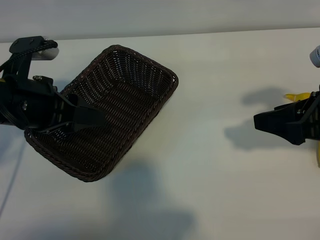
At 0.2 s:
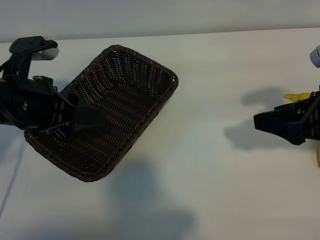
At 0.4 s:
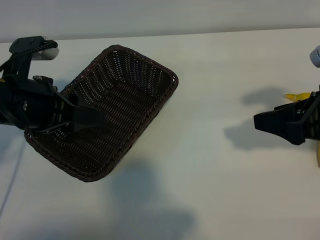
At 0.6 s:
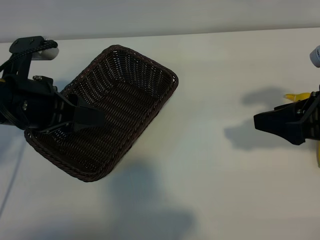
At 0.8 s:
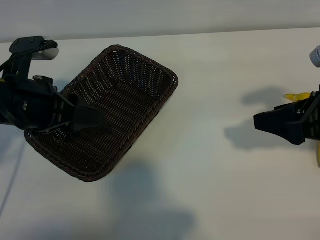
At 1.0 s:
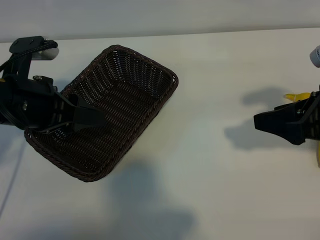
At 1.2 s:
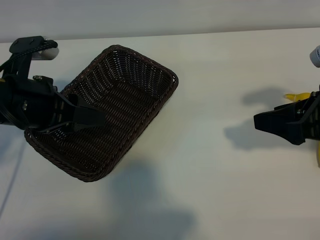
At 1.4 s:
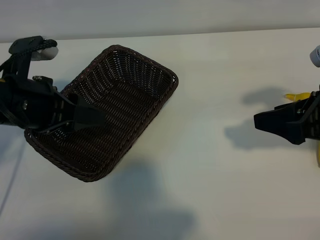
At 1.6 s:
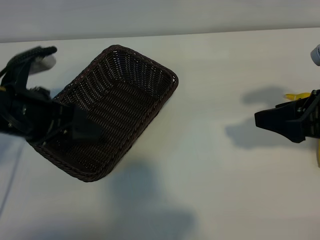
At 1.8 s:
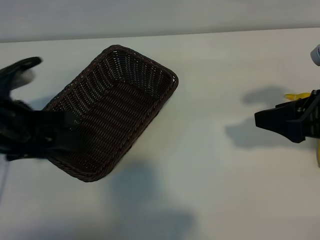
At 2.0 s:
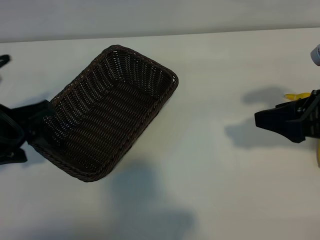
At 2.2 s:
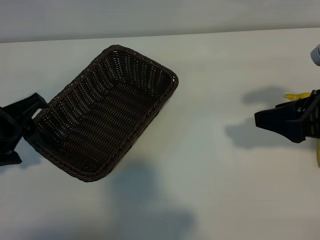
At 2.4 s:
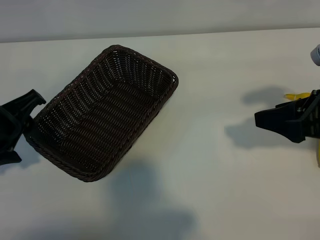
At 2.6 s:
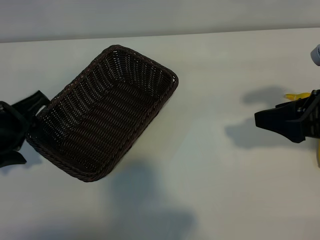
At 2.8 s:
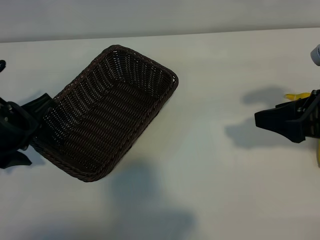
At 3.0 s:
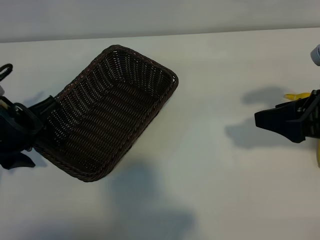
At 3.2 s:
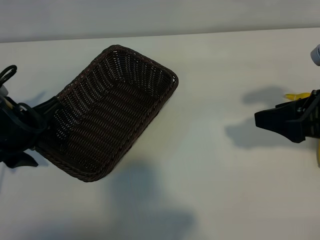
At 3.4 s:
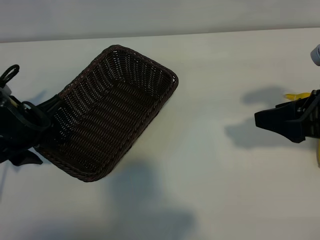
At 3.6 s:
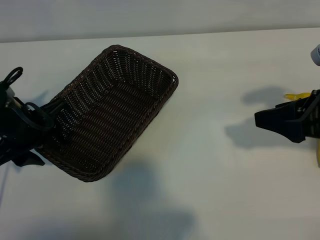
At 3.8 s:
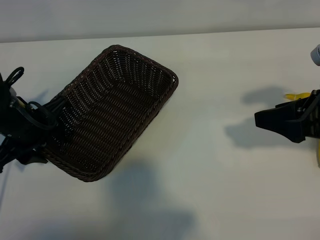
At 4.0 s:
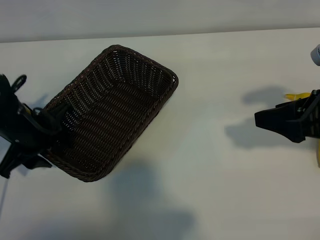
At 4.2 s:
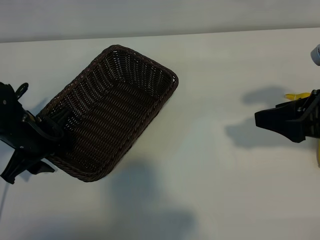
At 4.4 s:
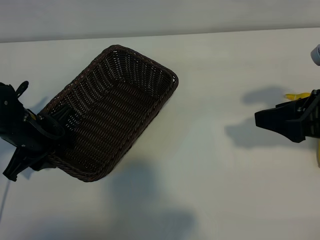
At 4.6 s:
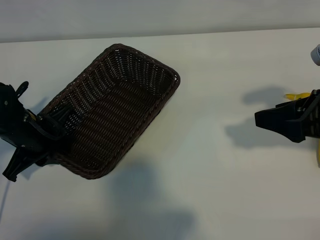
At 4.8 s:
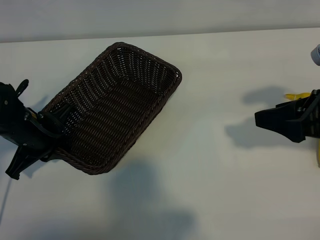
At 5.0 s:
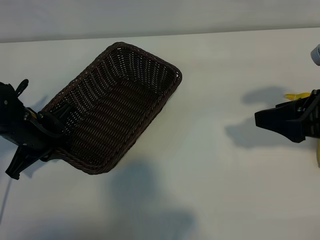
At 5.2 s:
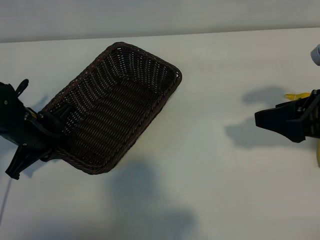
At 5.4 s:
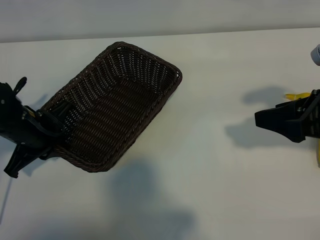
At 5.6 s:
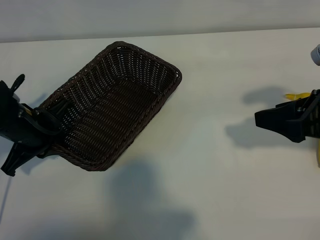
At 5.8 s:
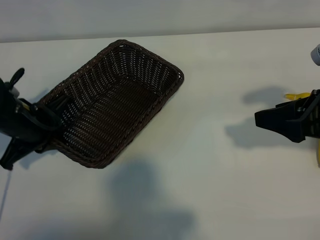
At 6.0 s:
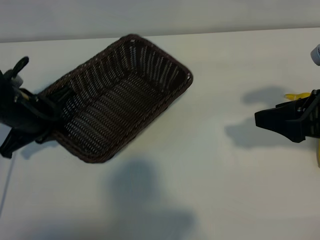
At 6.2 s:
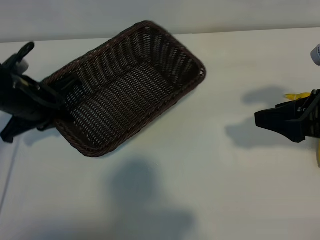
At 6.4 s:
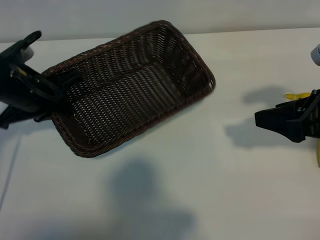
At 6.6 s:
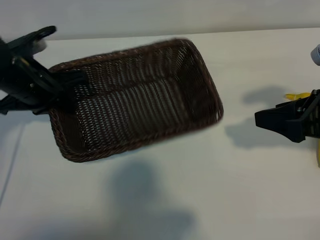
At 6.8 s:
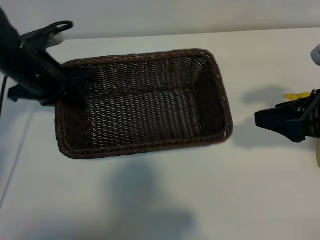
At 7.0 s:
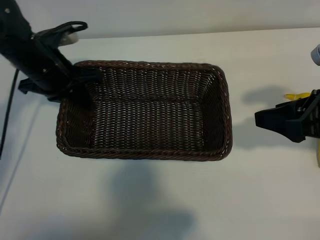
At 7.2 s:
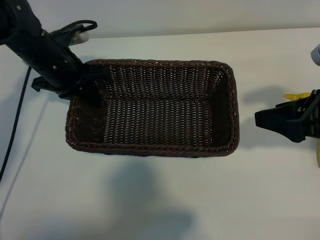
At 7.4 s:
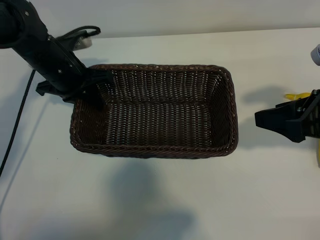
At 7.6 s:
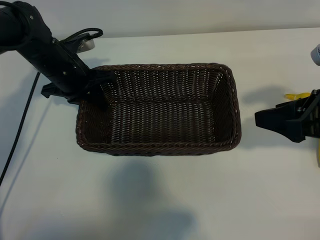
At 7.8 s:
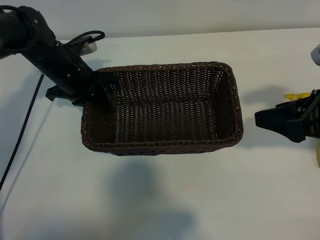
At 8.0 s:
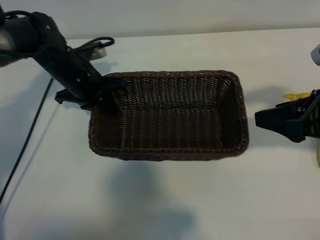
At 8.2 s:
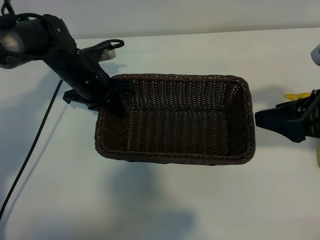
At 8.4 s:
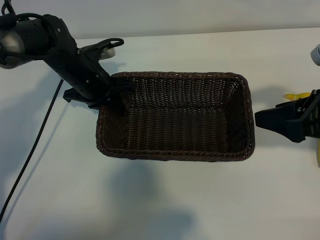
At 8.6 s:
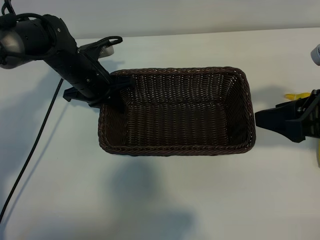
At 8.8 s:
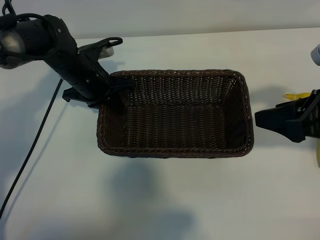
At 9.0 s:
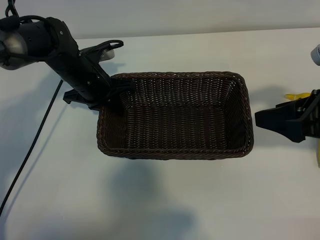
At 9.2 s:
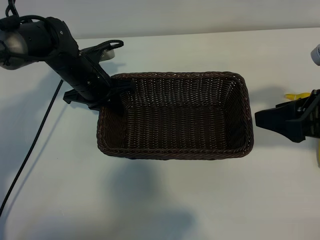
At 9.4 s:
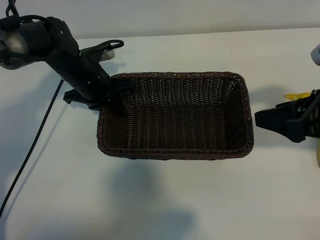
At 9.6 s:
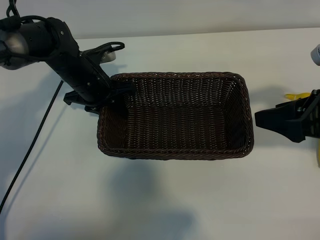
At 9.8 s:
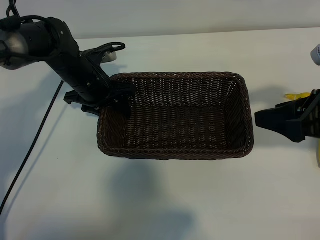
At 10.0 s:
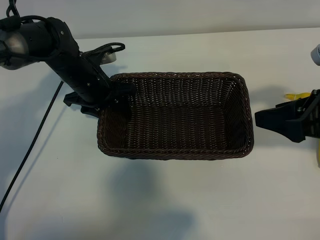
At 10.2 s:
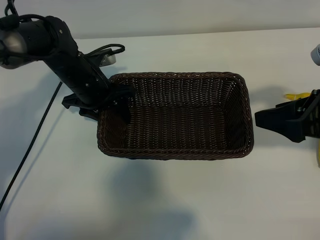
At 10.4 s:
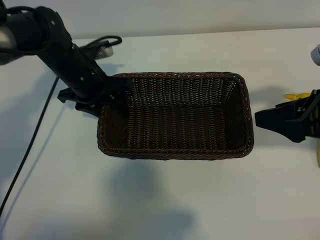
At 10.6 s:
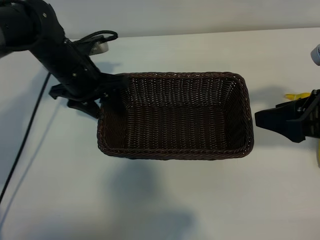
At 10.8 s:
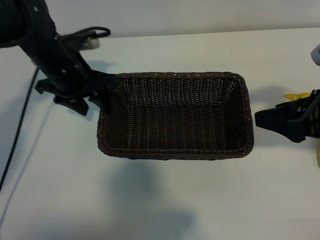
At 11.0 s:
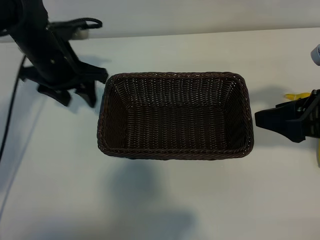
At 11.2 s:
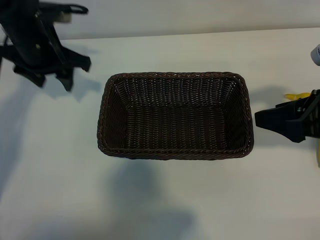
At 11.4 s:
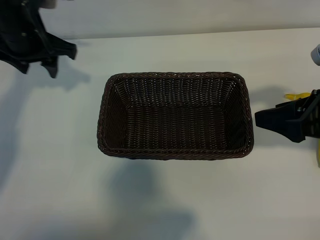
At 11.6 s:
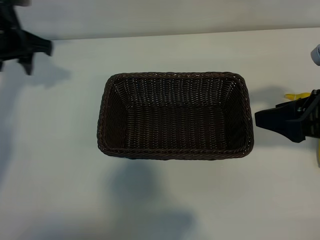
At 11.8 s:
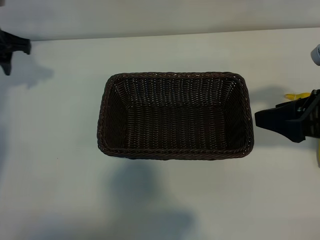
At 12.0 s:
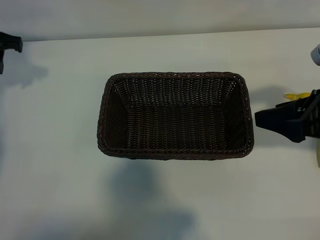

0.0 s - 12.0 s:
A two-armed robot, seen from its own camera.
Task of the whole recording: pick up the banana and put it into the basket.
Step, 1.4 s - 4.8 s: Grasp the basket with the left gripper.
Step, 5.0 s - 10.8 s: Place the basket in the center of the table with the left gripper.

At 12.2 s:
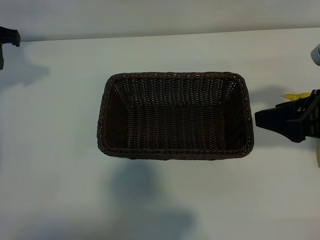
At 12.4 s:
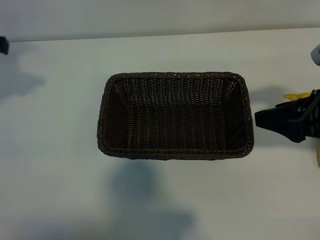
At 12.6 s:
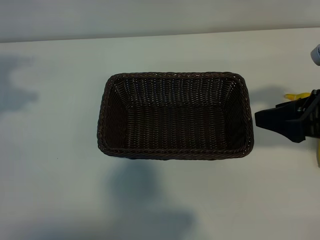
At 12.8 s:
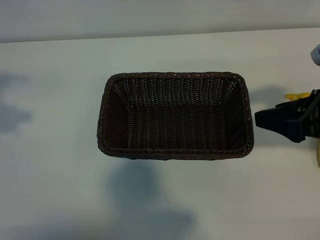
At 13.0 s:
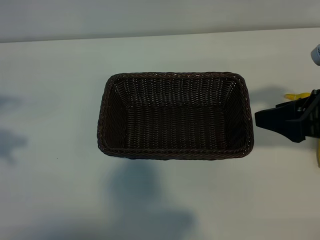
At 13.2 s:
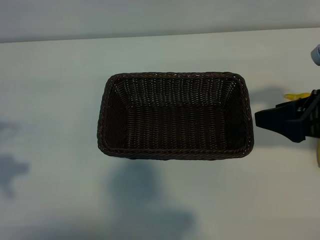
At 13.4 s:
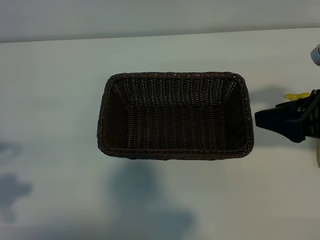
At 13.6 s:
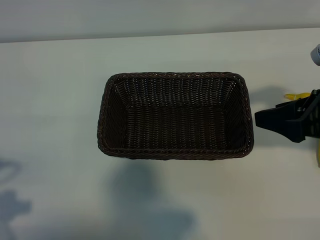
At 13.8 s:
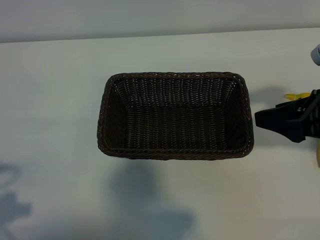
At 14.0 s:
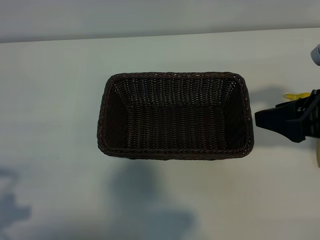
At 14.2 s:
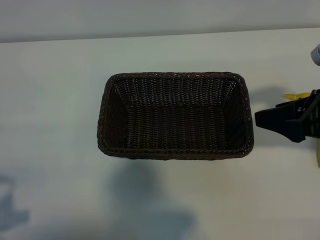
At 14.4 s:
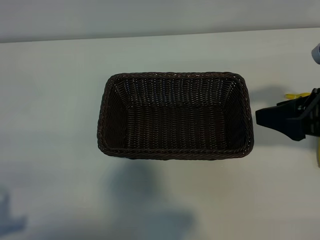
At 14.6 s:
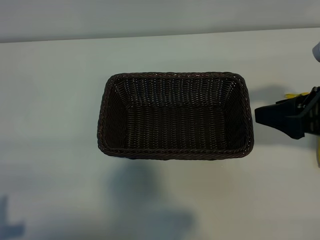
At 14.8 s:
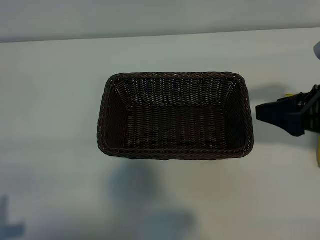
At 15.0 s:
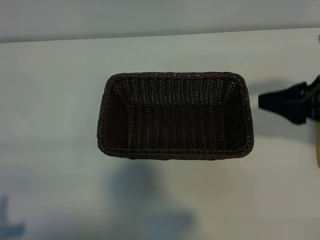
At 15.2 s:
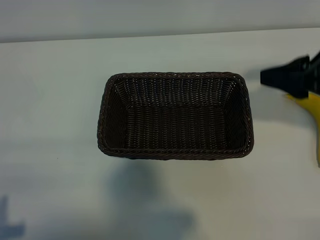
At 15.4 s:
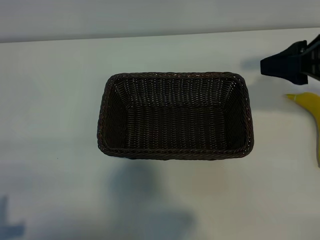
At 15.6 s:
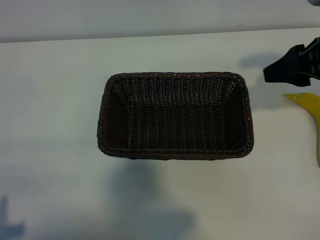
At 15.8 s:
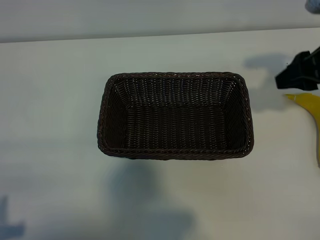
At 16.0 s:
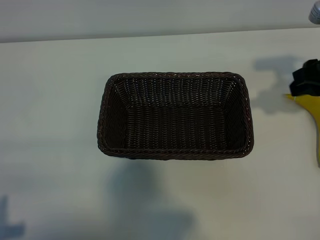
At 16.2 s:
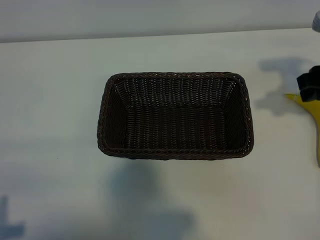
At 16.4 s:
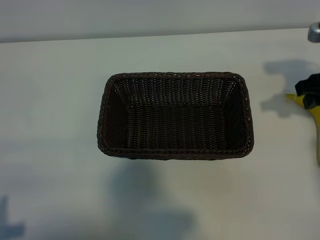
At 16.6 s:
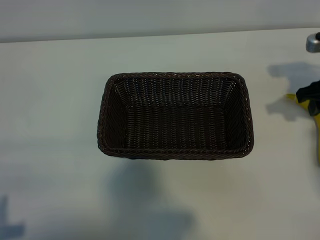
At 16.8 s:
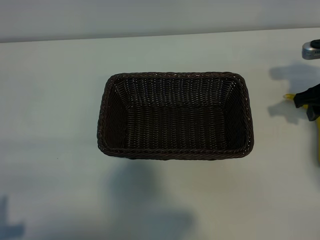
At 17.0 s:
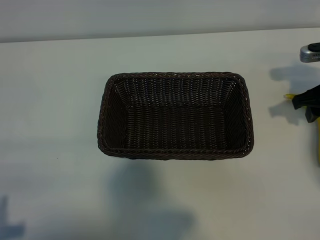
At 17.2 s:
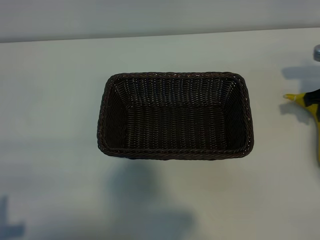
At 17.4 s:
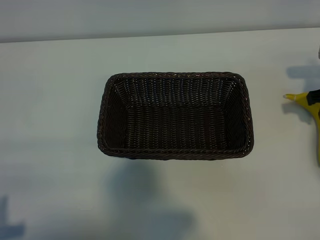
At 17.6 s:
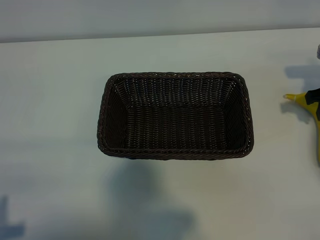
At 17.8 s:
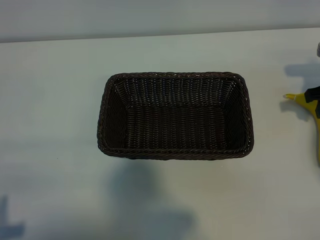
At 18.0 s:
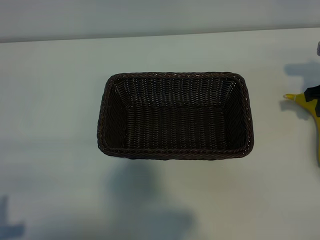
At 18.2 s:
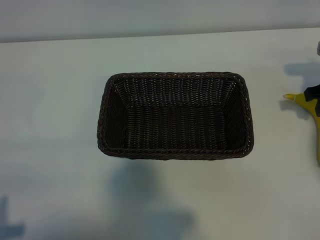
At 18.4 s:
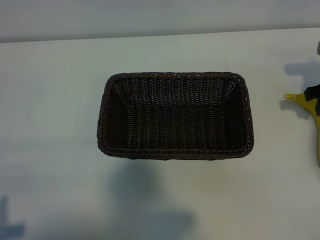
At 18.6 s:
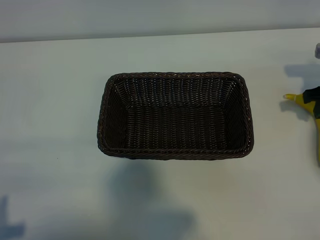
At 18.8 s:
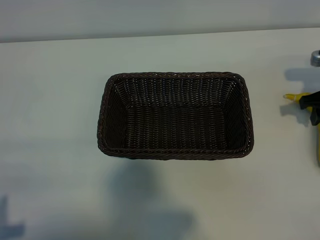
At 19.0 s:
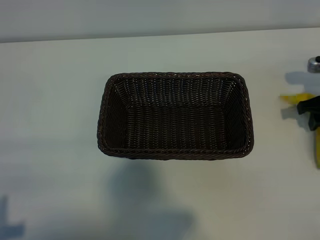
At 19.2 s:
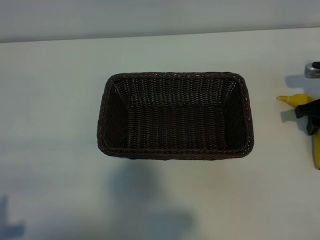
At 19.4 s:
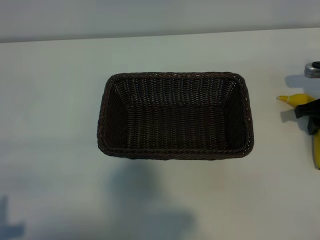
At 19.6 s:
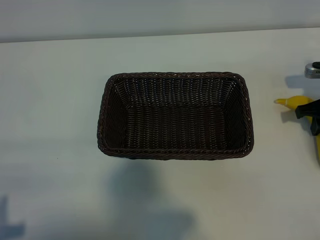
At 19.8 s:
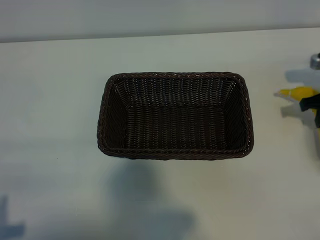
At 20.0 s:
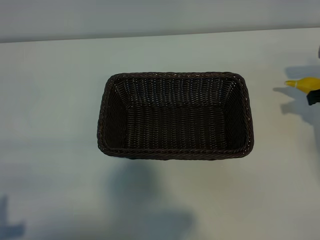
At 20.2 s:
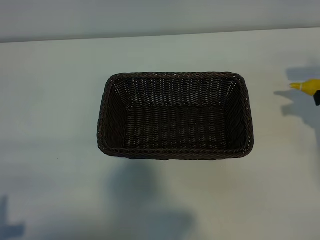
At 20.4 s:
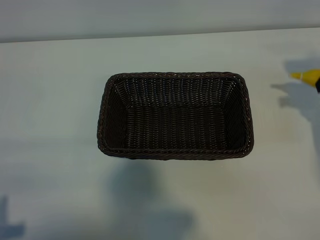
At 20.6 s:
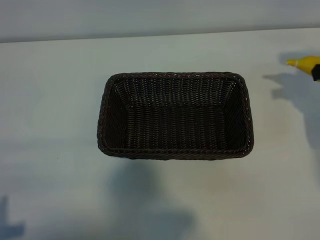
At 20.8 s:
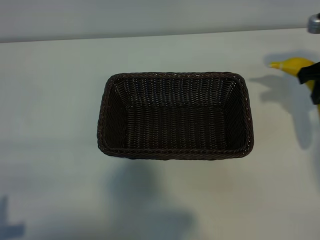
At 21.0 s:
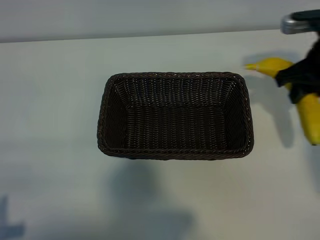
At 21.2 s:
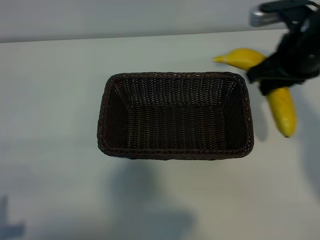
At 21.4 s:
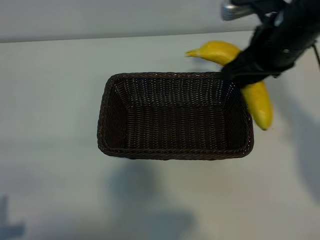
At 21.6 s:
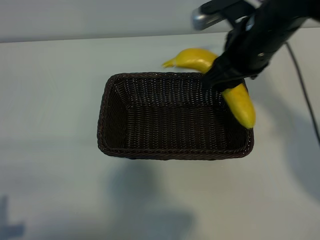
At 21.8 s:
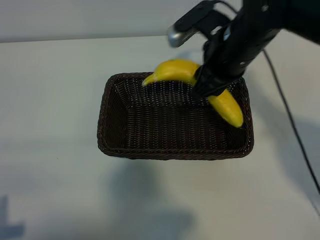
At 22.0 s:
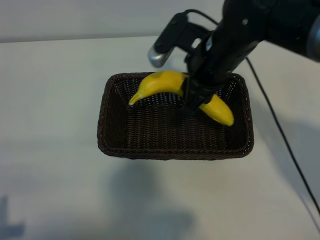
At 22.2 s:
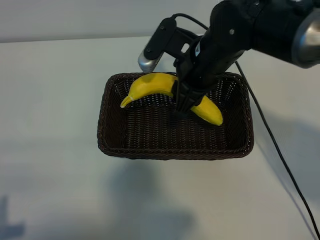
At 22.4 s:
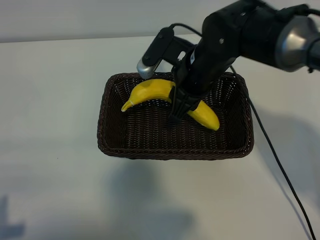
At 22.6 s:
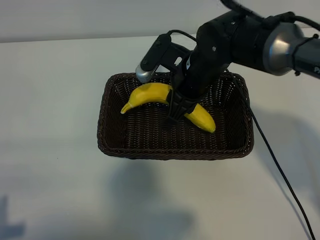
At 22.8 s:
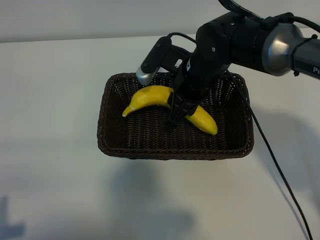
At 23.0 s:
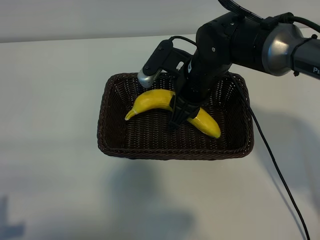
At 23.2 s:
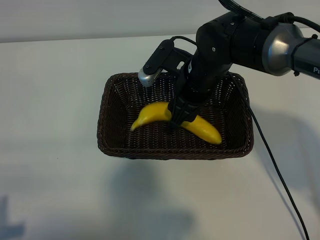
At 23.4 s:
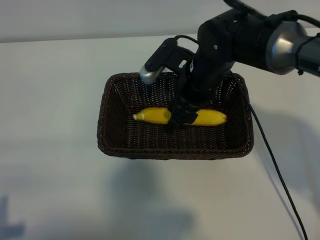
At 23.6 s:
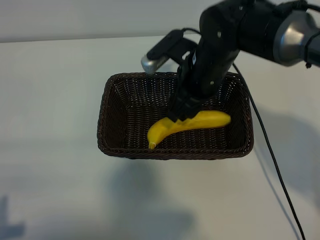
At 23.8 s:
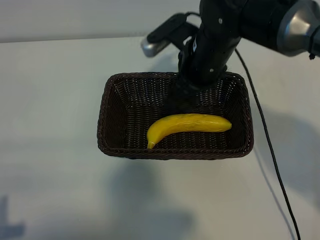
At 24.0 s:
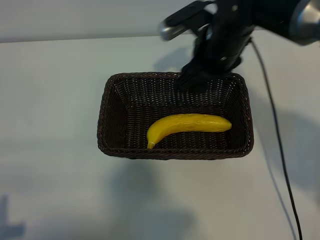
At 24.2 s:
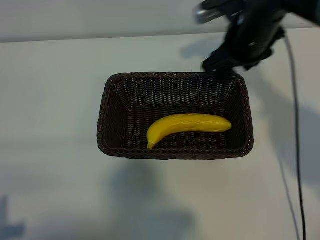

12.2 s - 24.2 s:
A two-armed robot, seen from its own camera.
Task of the whole recording: pick up the banana and put it into the basket.
Step, 12.2 s - 19.6 s: Grasp the banana with right gripper.
Step, 19.8 s - 23.8 s: Place the banana in the basket with right gripper.
